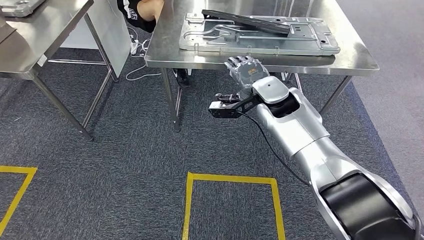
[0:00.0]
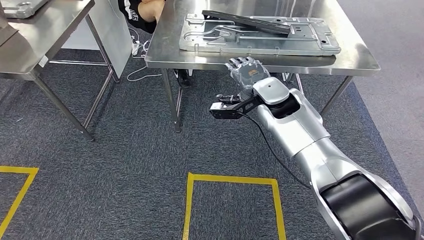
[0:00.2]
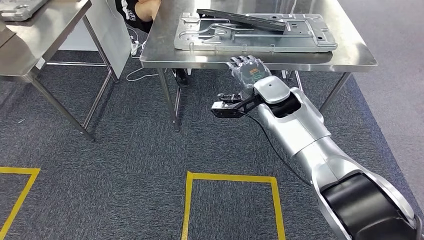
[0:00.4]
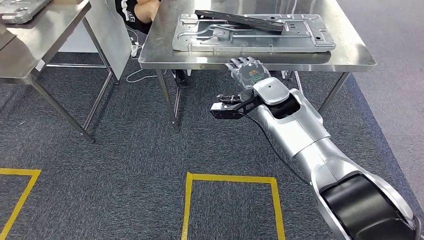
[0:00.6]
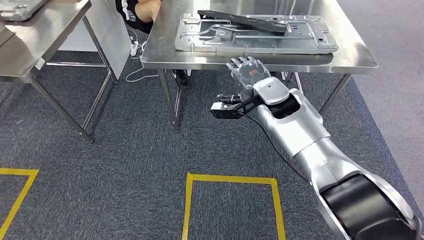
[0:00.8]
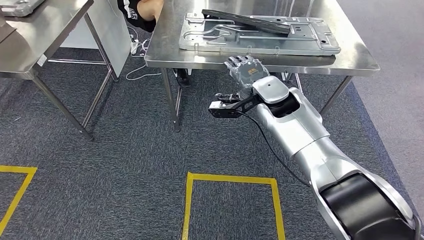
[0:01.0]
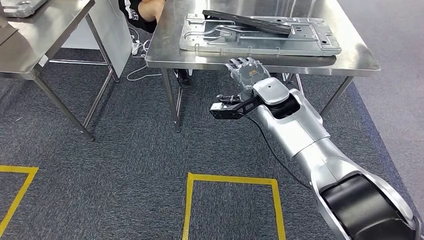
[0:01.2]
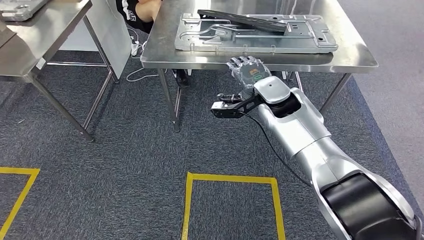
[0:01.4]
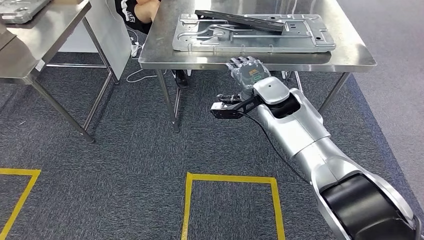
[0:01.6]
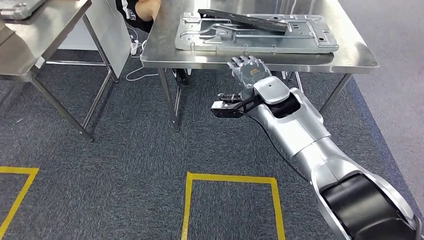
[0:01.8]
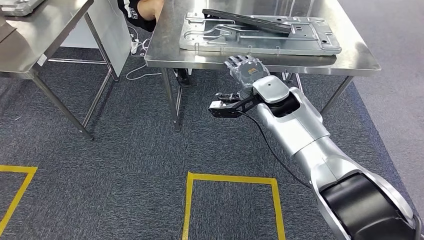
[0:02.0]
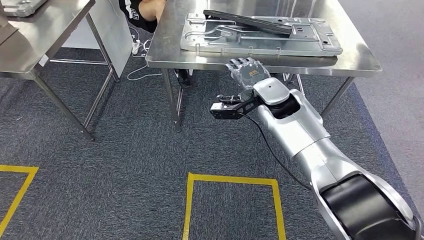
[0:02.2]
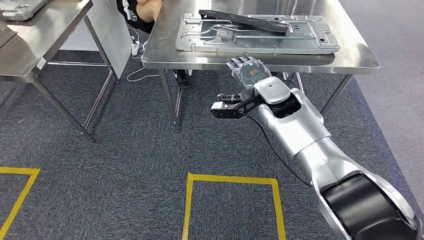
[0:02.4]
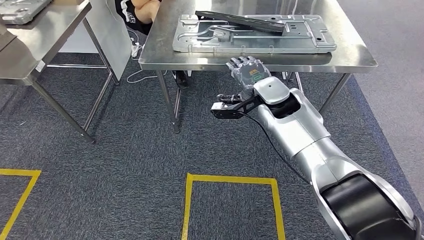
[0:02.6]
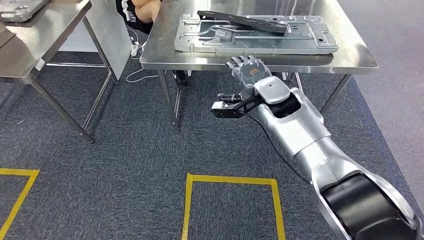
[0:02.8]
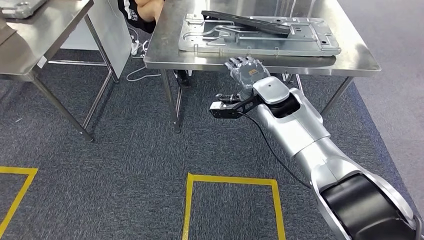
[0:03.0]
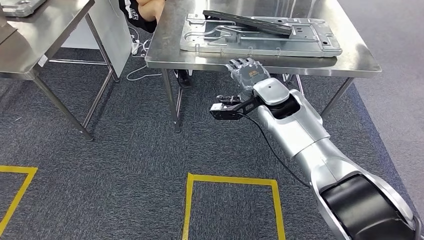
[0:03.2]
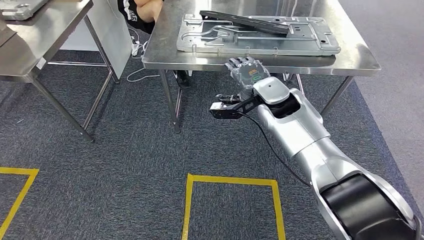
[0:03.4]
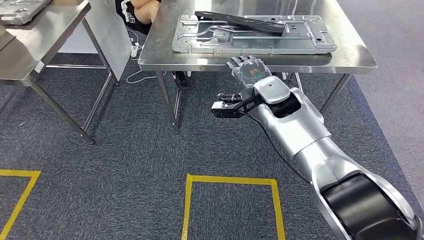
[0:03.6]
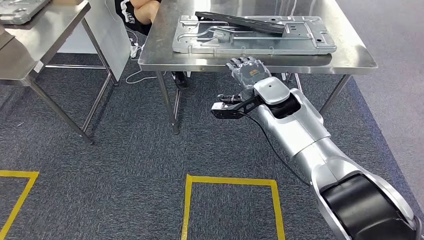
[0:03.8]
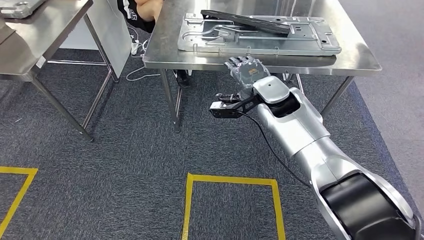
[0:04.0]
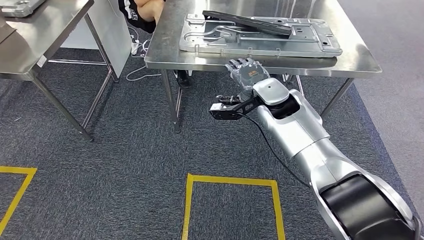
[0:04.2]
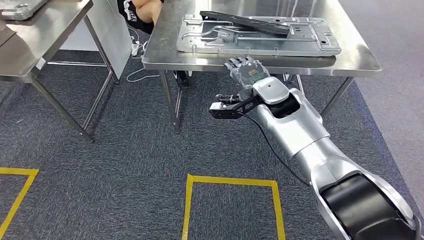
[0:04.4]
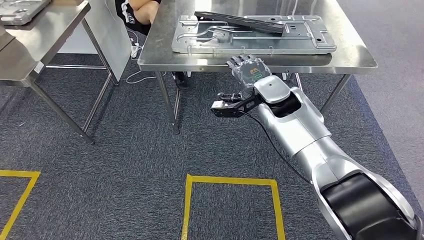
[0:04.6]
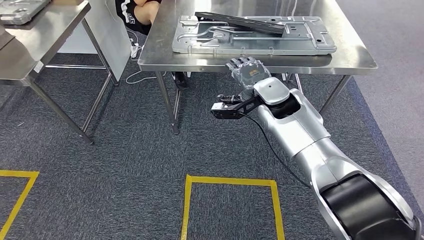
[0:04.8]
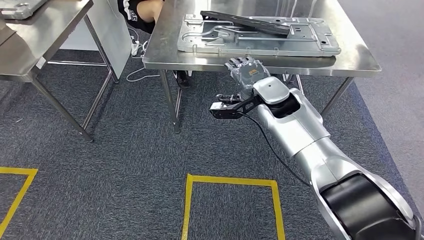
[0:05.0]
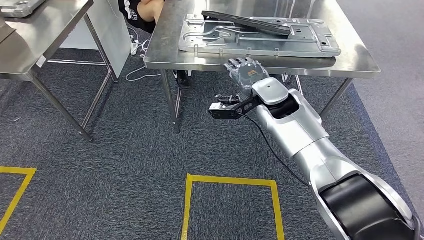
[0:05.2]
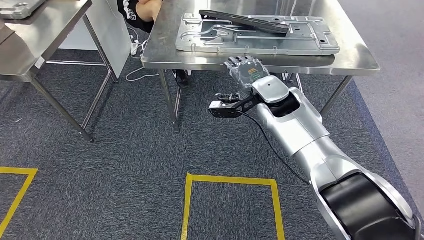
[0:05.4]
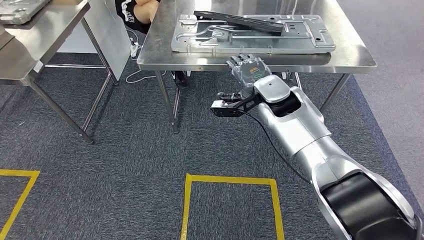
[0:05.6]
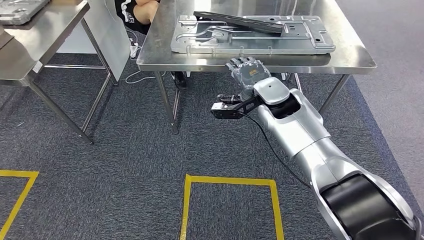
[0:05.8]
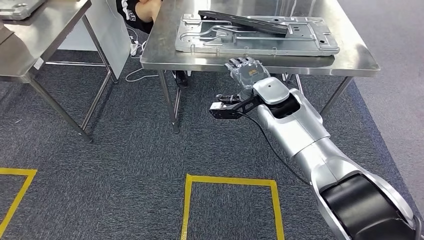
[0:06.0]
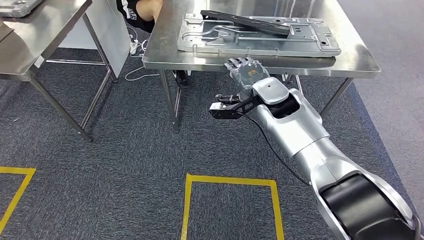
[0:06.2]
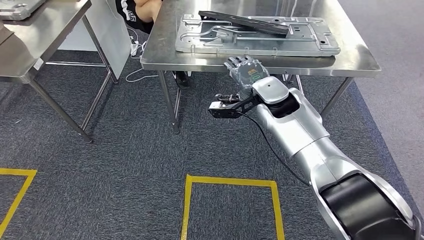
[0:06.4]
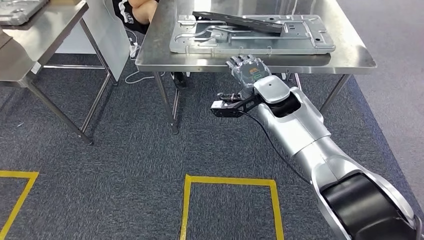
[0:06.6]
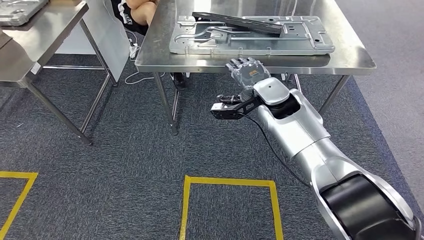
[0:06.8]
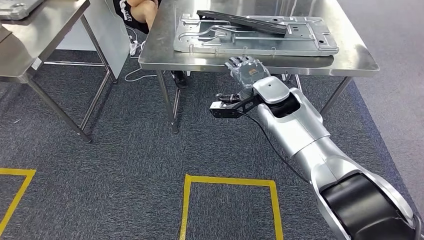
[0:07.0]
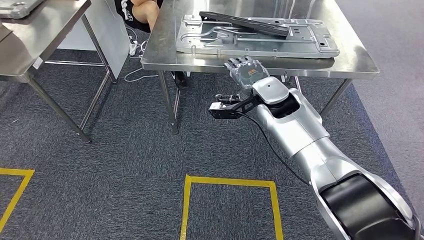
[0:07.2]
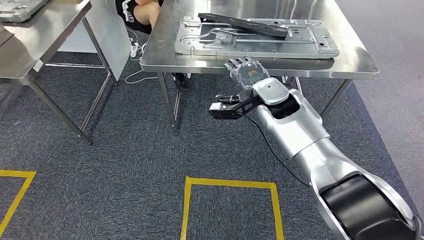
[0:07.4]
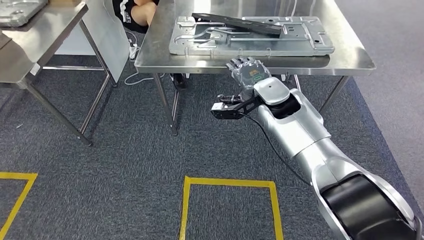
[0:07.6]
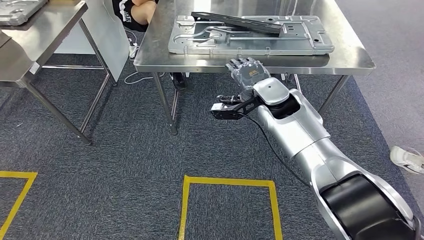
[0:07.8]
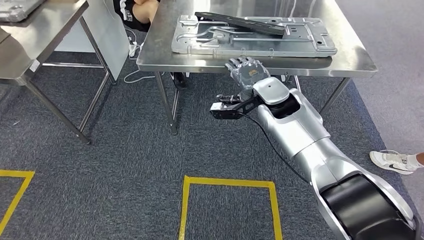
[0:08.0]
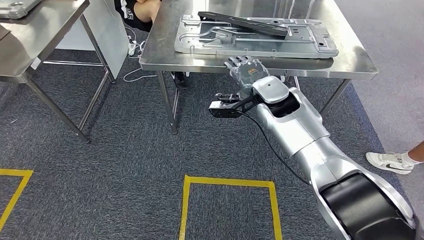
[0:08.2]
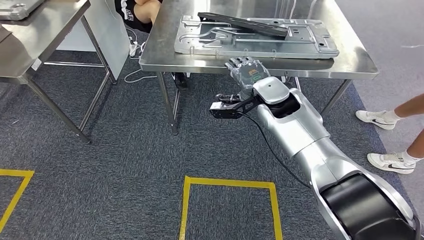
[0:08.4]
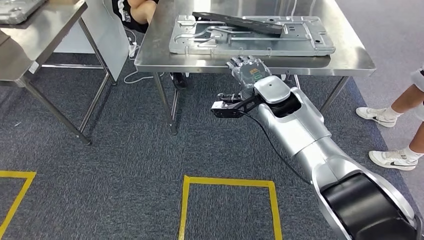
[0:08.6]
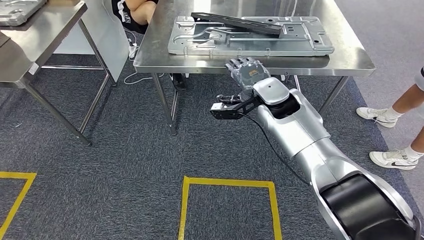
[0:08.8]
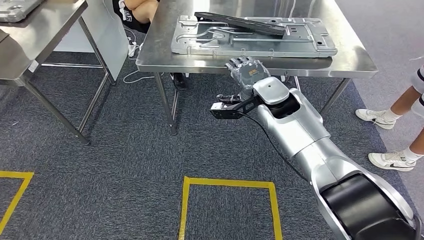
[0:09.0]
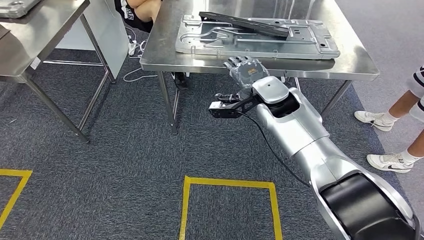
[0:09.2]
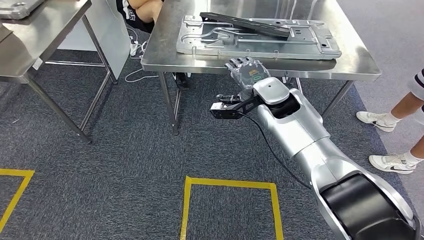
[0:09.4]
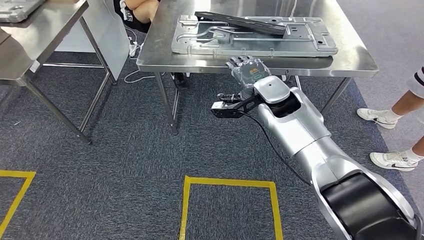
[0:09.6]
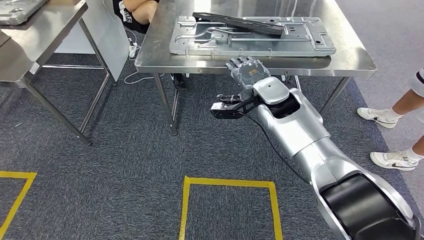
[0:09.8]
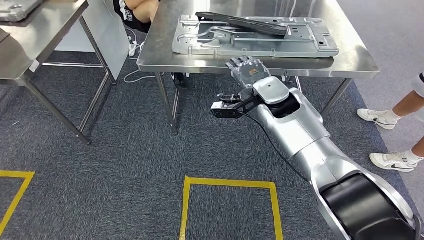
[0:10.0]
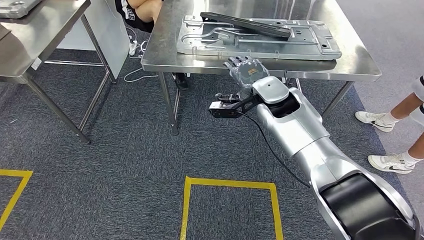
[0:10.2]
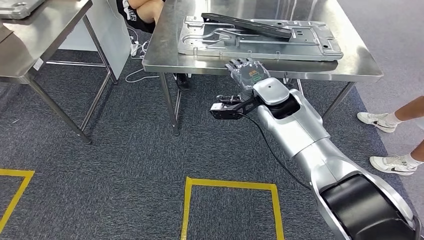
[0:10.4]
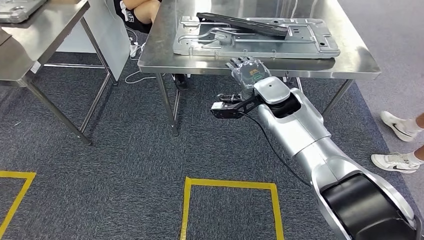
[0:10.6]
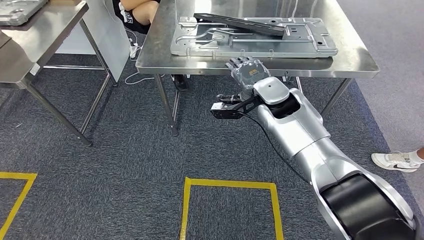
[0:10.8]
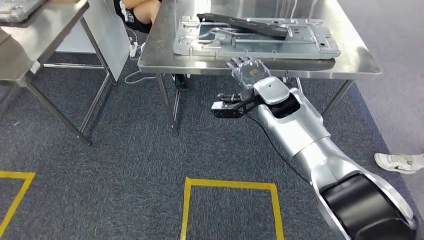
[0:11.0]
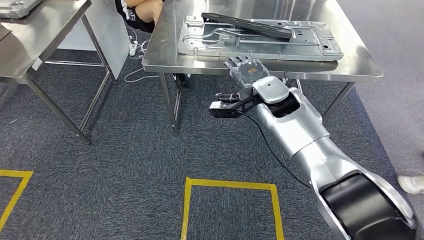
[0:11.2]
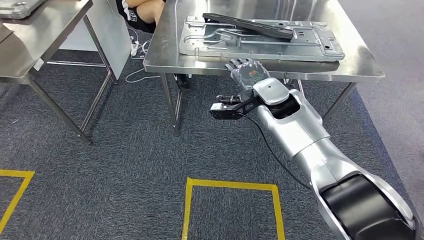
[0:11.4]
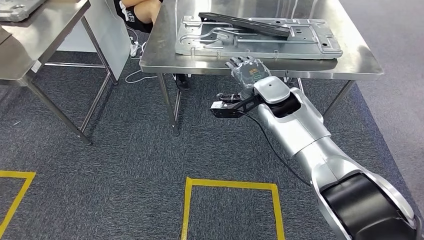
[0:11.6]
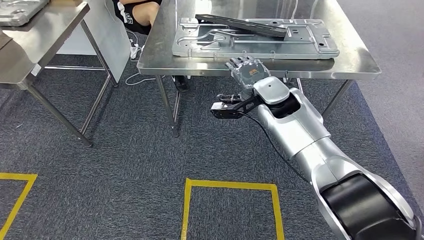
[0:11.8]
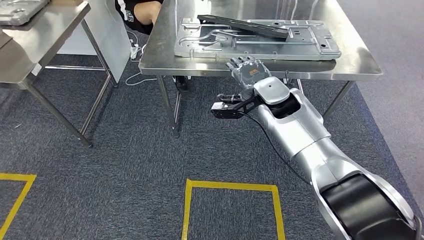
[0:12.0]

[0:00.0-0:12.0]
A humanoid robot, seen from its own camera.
0:00.0 to 0:12.0: Both hands stay about where they are.

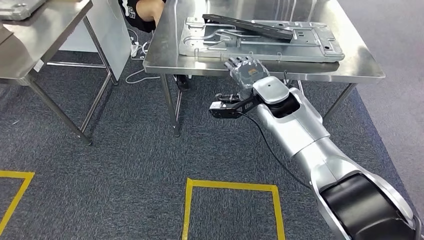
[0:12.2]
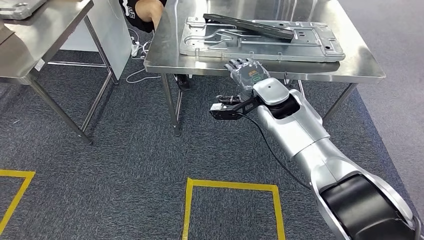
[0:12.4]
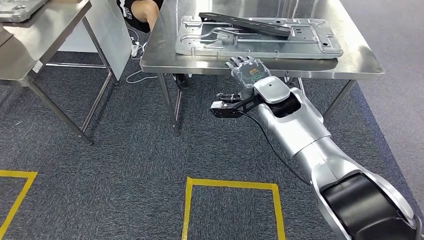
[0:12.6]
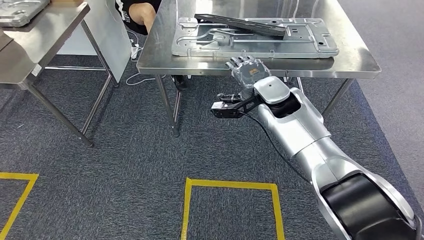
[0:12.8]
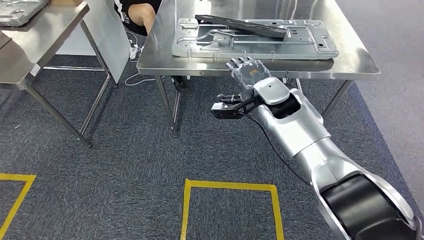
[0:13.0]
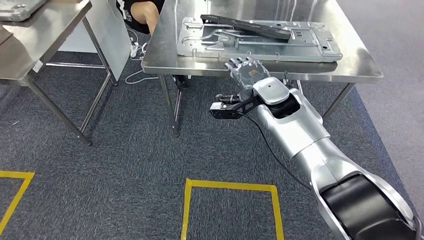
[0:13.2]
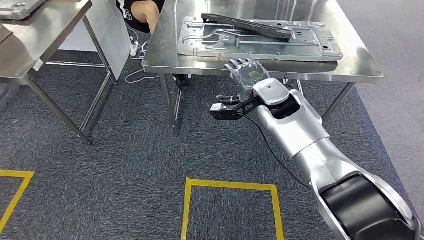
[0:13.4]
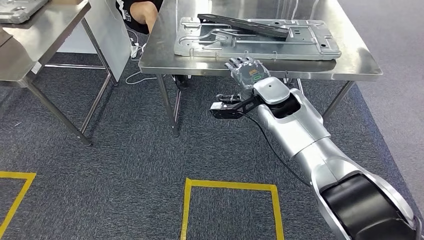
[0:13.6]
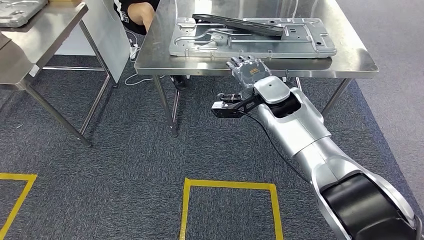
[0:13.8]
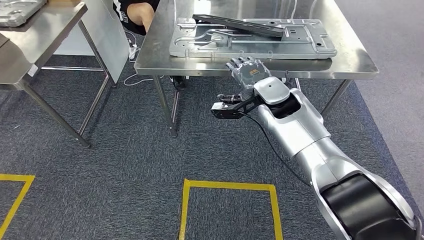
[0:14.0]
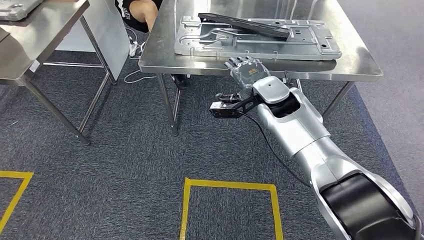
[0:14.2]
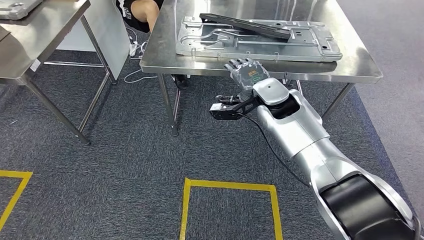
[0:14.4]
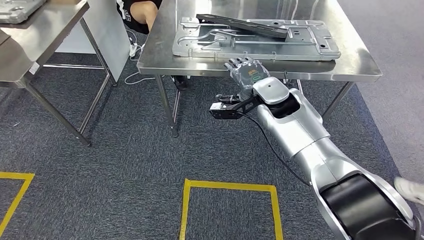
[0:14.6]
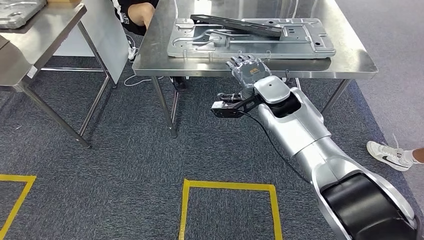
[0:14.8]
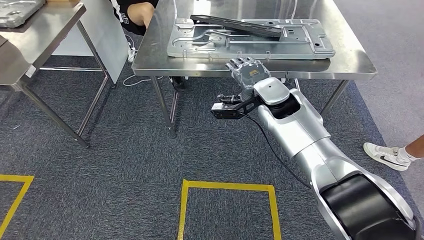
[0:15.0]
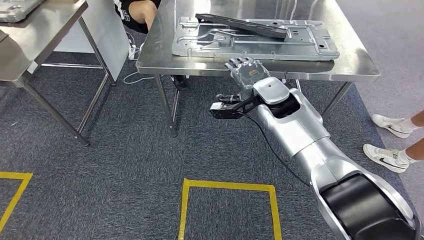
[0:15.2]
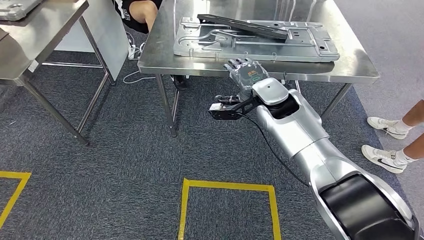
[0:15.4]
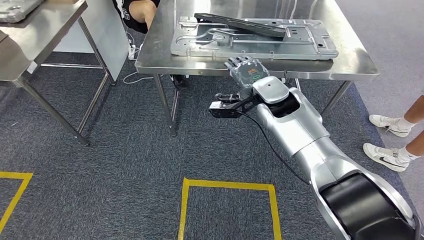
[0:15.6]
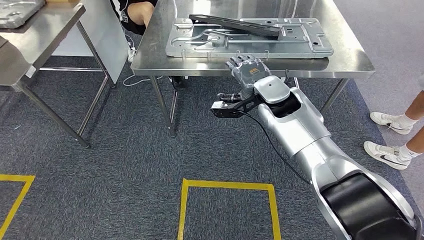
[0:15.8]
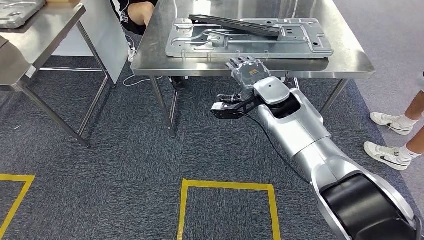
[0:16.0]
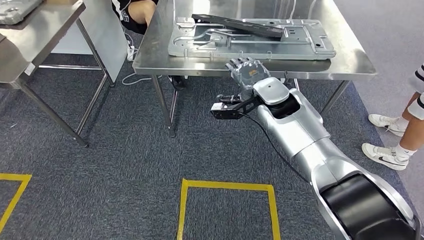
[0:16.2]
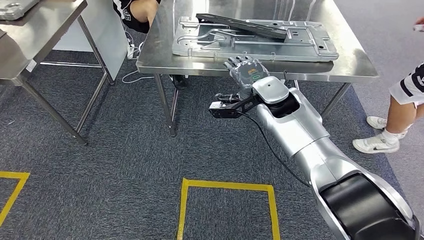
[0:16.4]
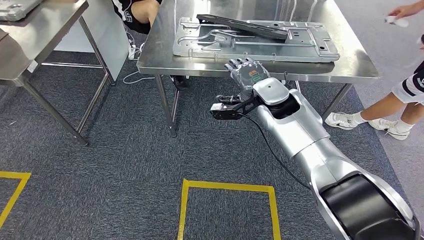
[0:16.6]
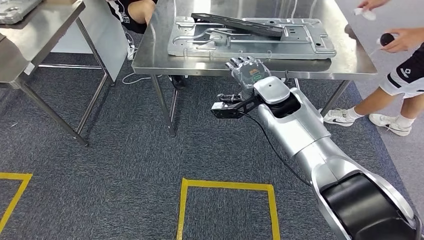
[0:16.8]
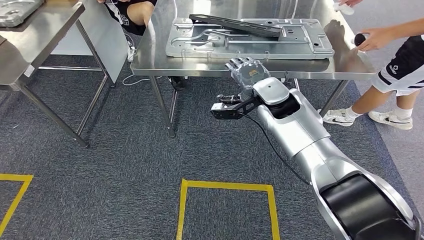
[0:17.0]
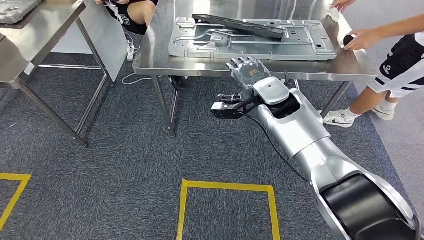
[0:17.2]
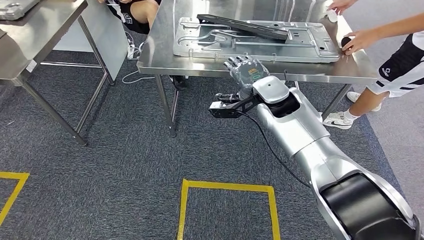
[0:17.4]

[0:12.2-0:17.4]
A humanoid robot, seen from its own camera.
Step, 0:12.2 to 0:17.4: Move to the initial position of the shelf.
0:12.2 to 0:17.4: The two hands keep their place.
